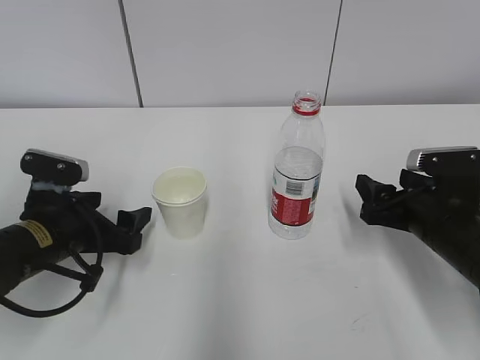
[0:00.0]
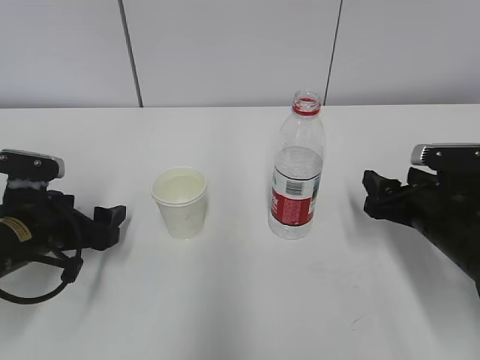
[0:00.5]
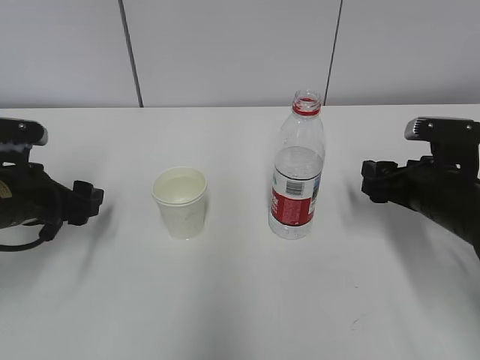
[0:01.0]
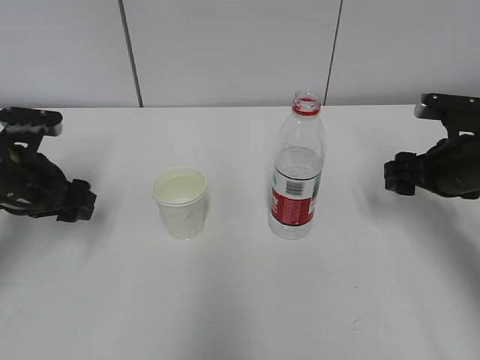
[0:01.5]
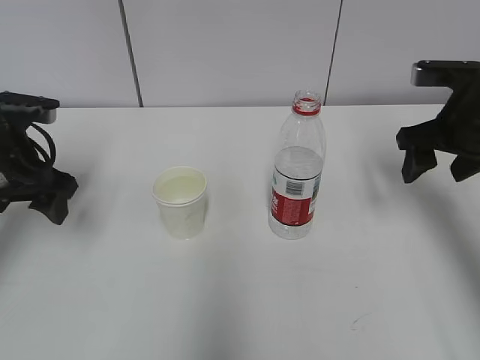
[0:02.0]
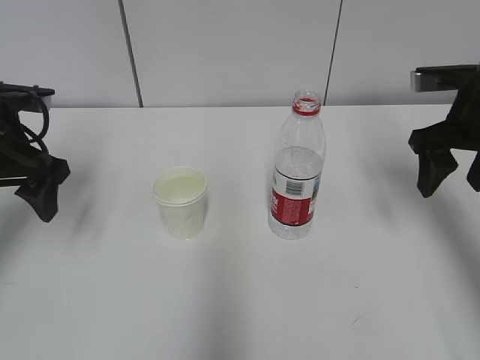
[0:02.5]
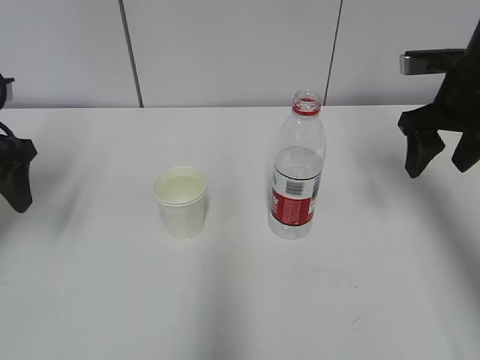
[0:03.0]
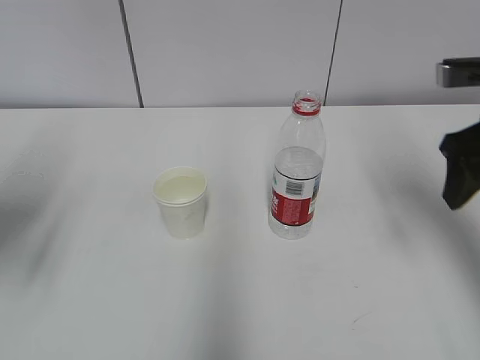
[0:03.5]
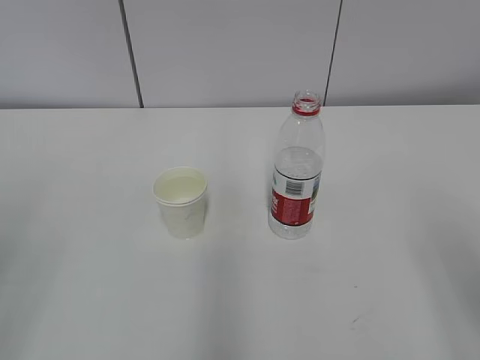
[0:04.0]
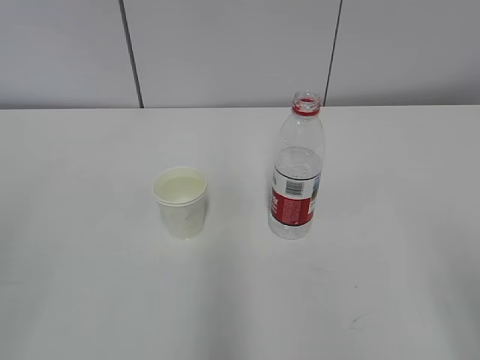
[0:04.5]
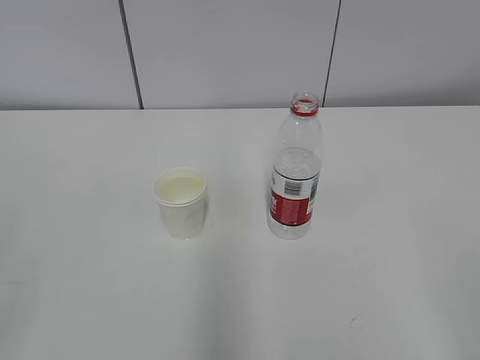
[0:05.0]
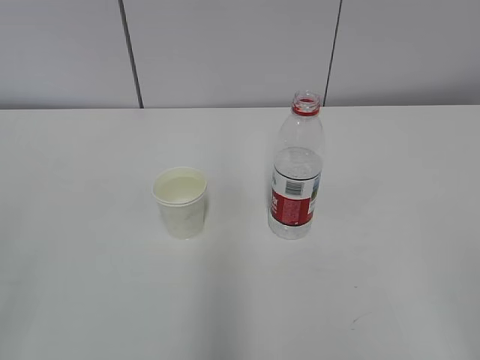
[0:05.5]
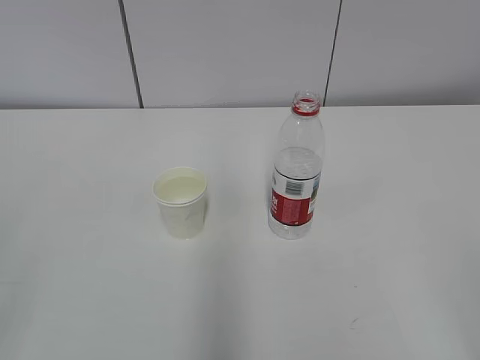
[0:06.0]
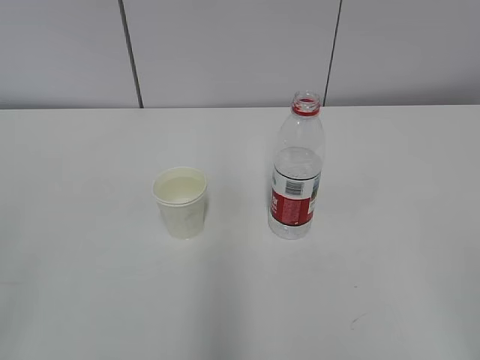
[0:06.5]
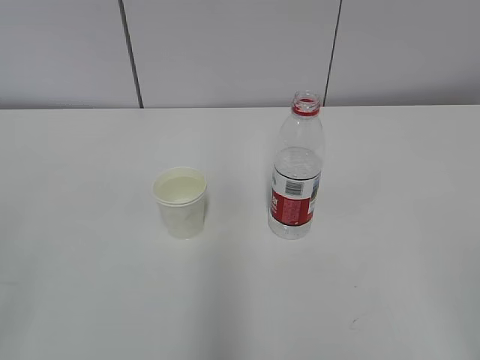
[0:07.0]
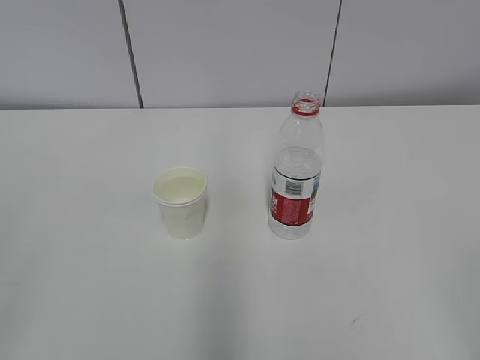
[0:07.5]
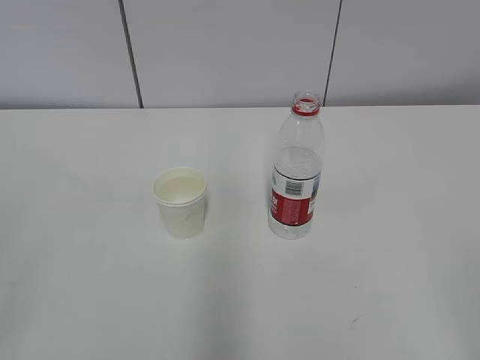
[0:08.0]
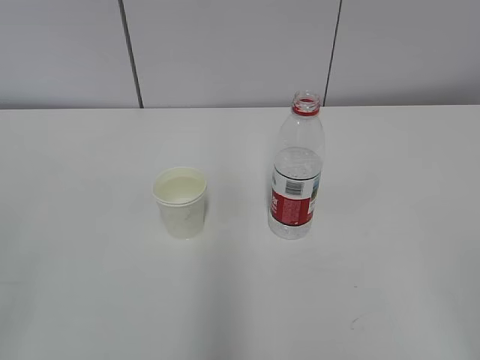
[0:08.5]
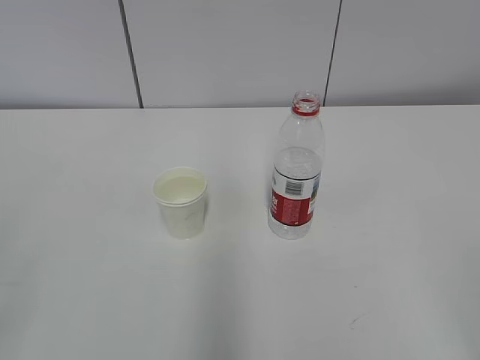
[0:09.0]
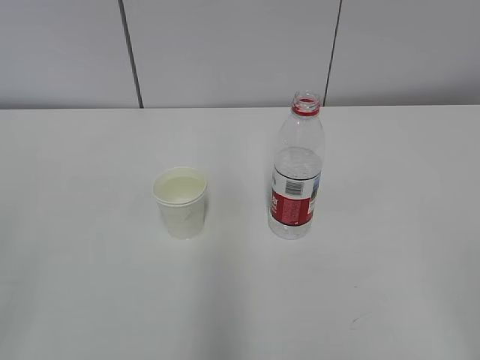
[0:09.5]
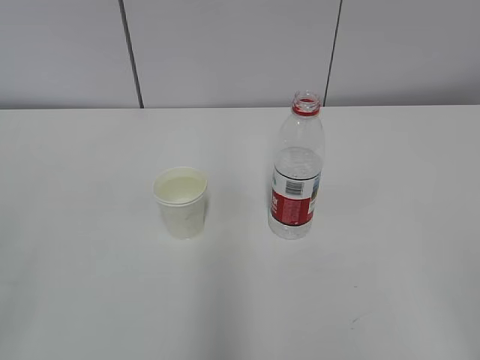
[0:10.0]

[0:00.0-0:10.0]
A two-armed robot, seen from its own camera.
0:00.0 to 0:02.0: The right gripper heads upward and forward, covering roughly 15 cm, while the left gripper heads upward, to the left and forward, covering roughly 15 cm.
0:02.0 to 0:04.0: The two grippers go roughly 25 cm backward.
0:06.0 to 0:10.0: Neither gripper changes place.
